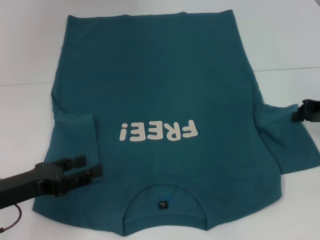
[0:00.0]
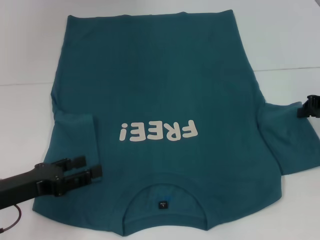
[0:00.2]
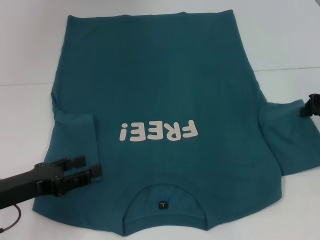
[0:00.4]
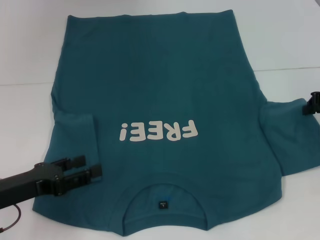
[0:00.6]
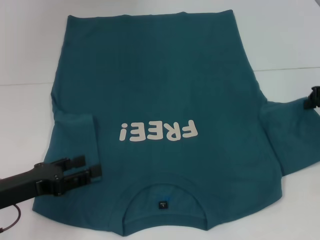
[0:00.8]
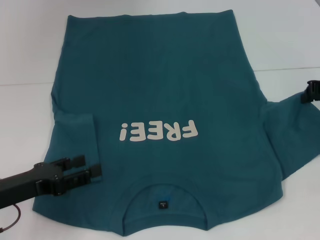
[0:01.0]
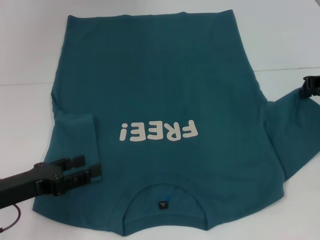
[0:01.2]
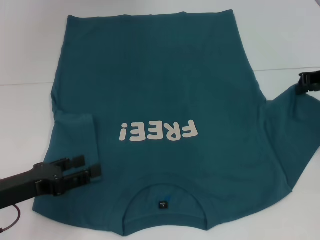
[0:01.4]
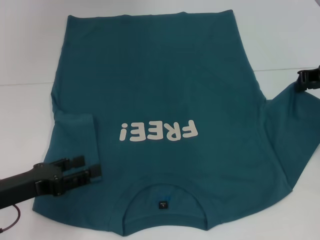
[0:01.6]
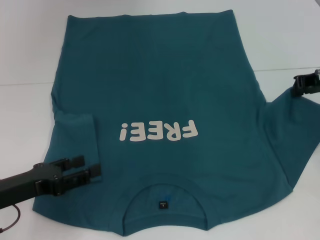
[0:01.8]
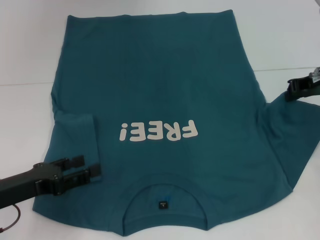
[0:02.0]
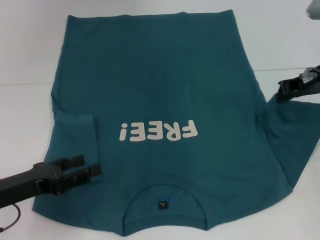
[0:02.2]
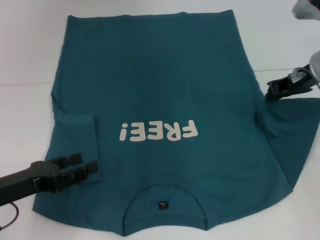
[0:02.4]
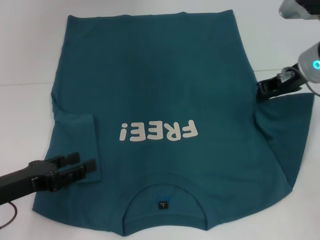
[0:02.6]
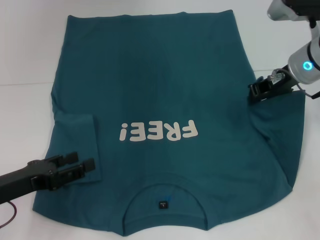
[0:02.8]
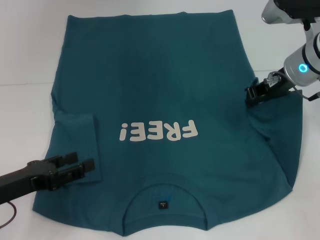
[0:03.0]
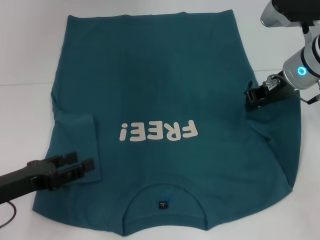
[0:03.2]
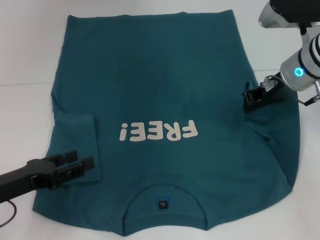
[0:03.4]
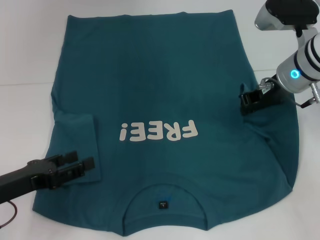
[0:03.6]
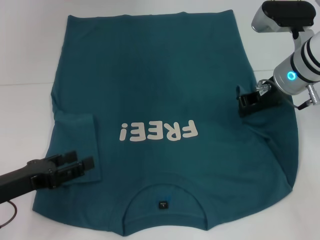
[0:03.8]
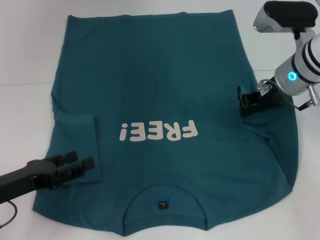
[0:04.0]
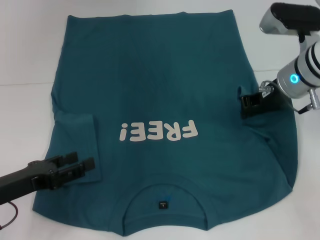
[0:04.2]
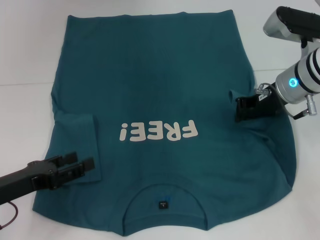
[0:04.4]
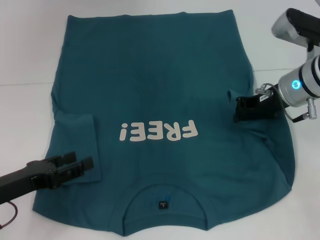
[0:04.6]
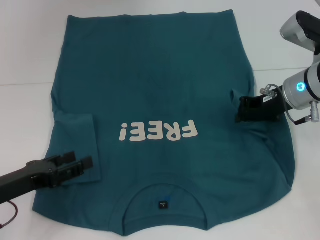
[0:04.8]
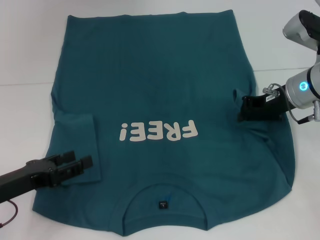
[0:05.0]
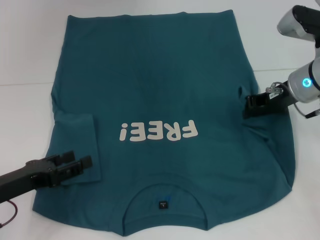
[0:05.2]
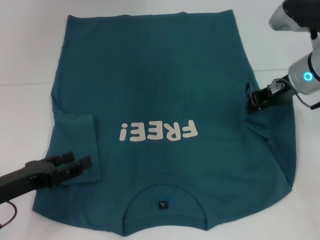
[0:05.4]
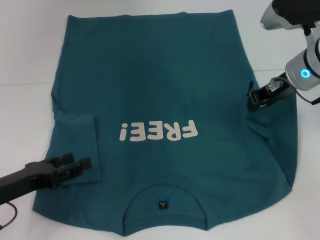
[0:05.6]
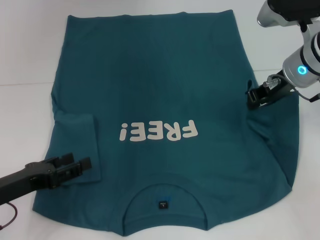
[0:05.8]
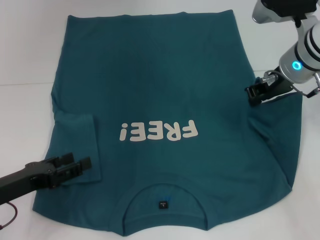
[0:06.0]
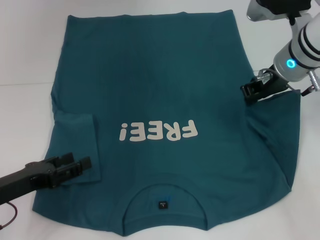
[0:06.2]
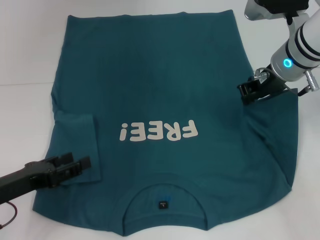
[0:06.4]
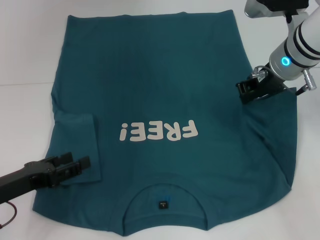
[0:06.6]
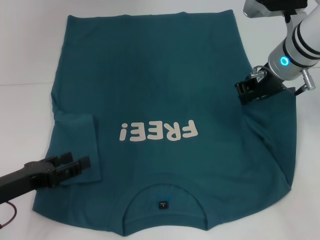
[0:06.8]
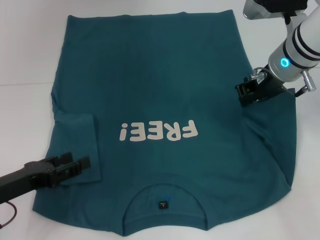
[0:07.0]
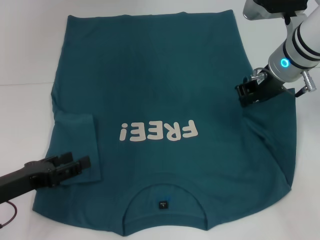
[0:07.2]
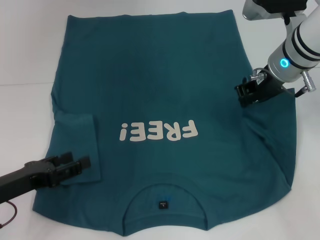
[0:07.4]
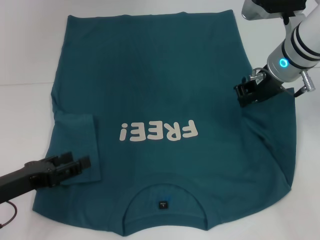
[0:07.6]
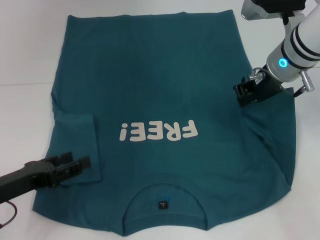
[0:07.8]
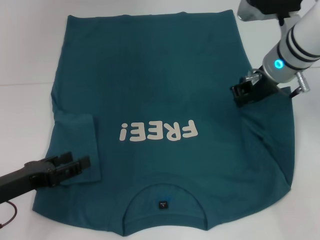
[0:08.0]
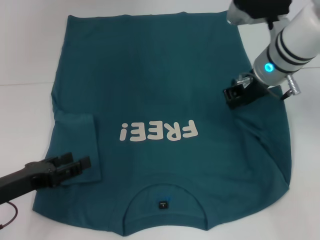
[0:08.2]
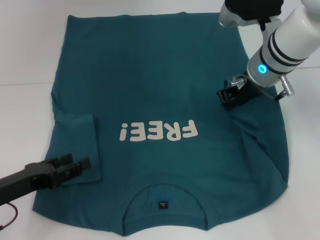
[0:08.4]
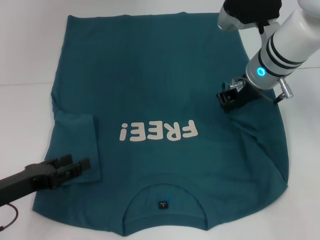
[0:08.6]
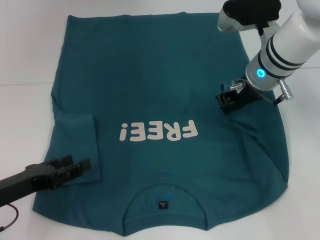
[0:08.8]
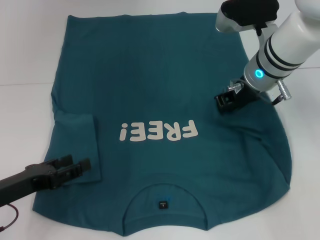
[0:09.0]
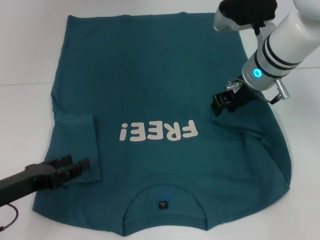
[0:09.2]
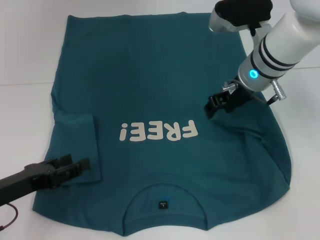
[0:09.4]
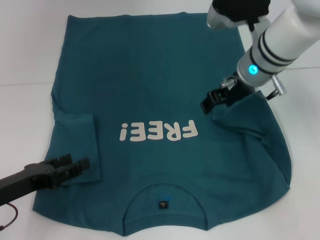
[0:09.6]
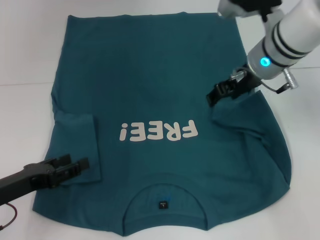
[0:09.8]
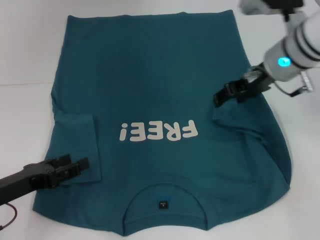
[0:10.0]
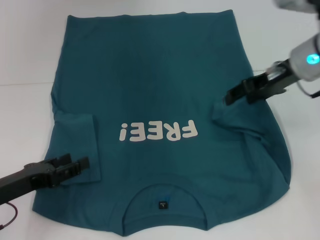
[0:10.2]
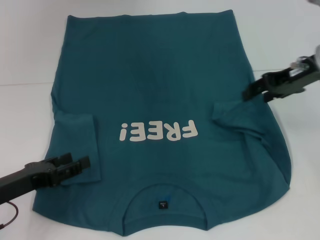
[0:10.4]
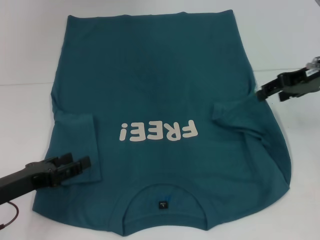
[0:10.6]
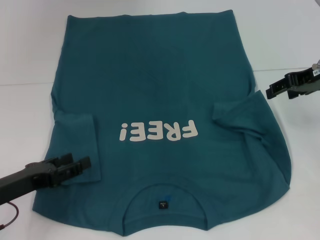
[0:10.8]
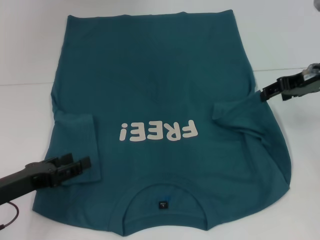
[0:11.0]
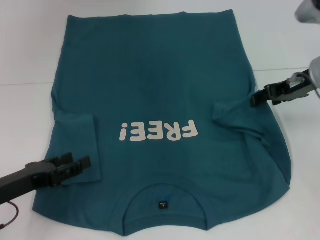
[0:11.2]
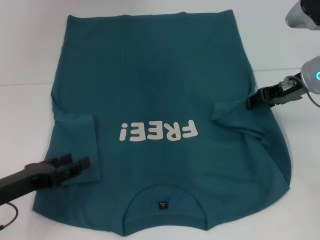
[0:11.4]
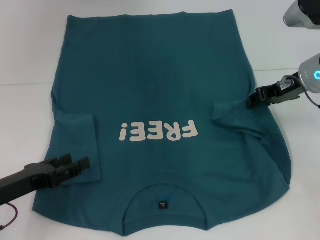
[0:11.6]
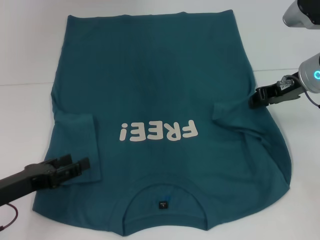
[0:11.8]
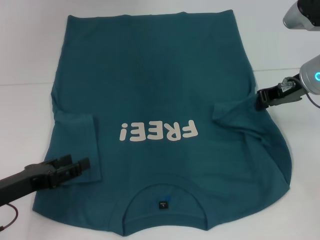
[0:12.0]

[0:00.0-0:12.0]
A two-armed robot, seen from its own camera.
0:00.0 to 0:01.6: The right gripper travels upward by some 5 cm.
0:01.6 to 0:03.0: The right gripper heads to the left, covering approximately 10 cm.
0:03.0 to 0:04.4: The grippers make only small movements.
0:04.4 to 0:07.6: There are only small adjustments of the grippers.
0:07.6 to 0:09.0: The grippers make only small movements.
0:09.0 to 0:10.4: The right gripper moves to the right, some 10 cm, and opens its fingers.
0:10.4 to 0:12.0: The right gripper closes.

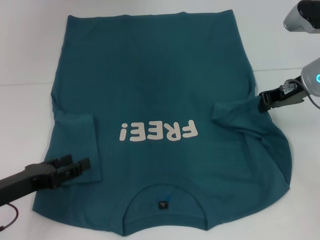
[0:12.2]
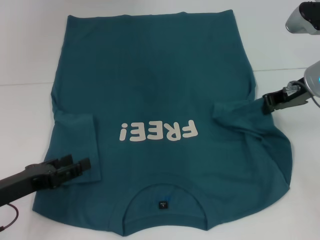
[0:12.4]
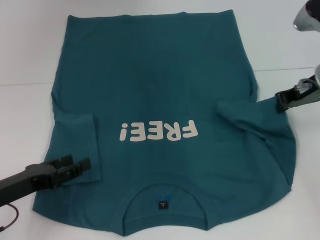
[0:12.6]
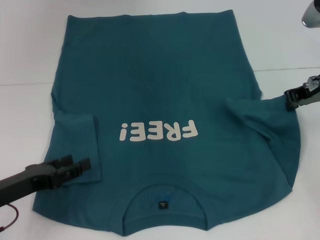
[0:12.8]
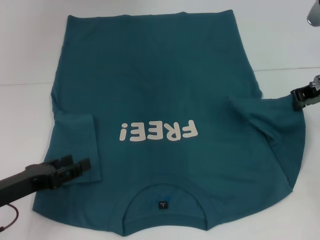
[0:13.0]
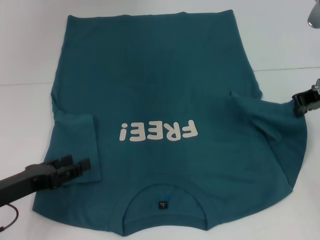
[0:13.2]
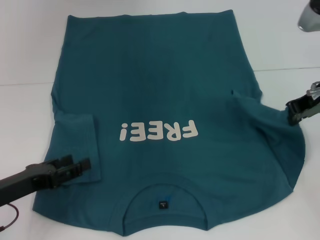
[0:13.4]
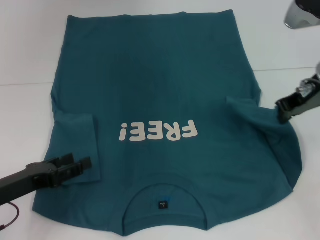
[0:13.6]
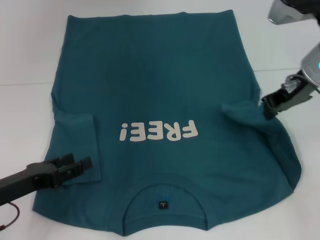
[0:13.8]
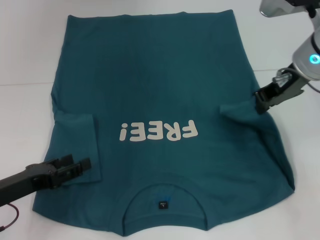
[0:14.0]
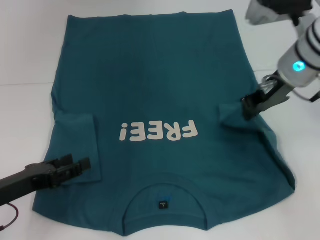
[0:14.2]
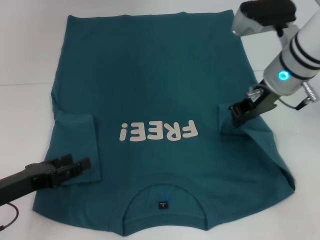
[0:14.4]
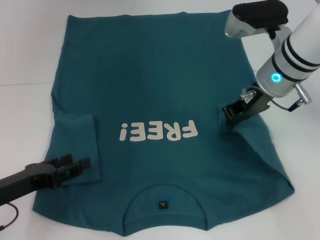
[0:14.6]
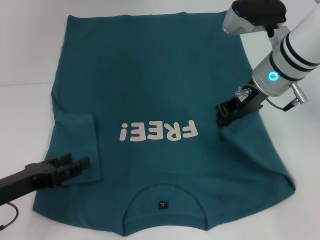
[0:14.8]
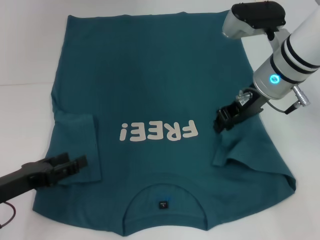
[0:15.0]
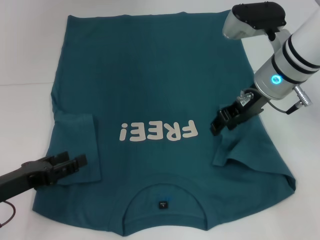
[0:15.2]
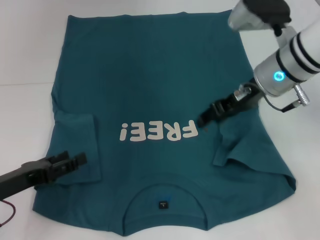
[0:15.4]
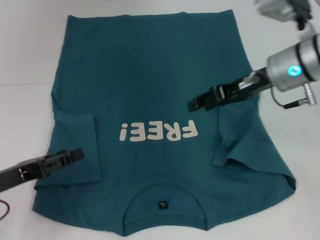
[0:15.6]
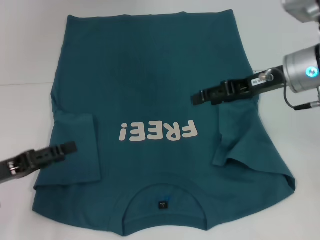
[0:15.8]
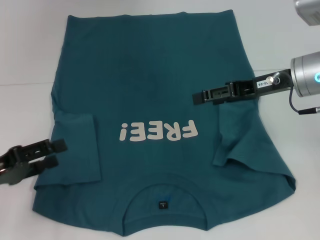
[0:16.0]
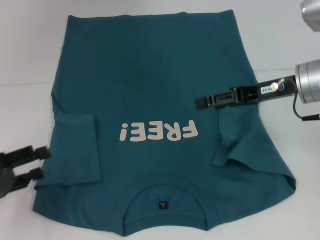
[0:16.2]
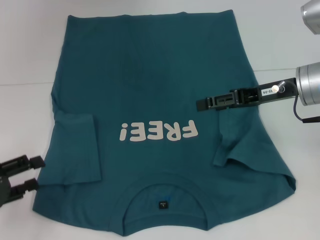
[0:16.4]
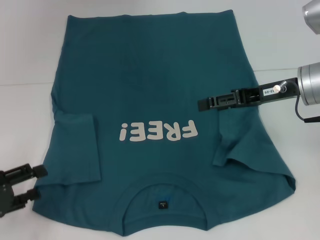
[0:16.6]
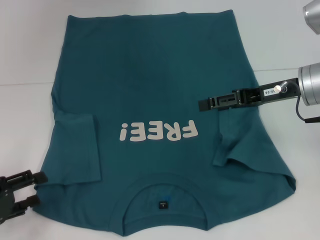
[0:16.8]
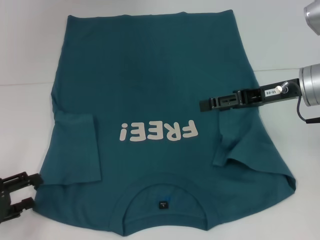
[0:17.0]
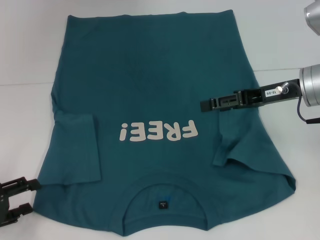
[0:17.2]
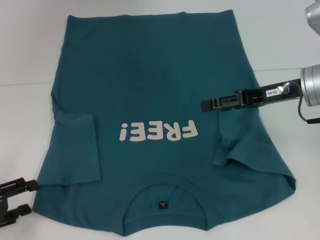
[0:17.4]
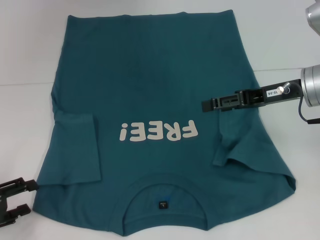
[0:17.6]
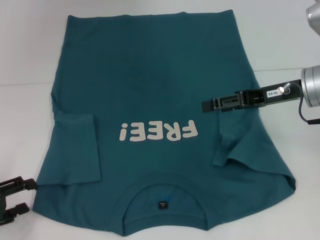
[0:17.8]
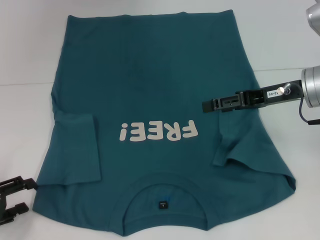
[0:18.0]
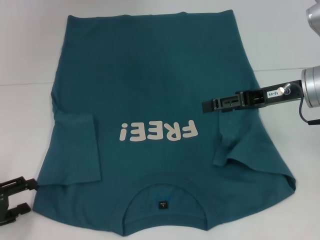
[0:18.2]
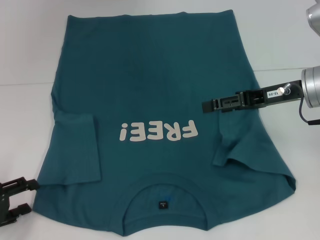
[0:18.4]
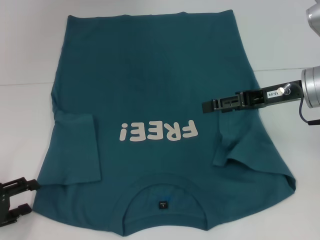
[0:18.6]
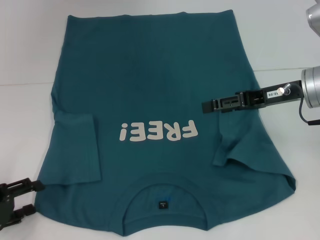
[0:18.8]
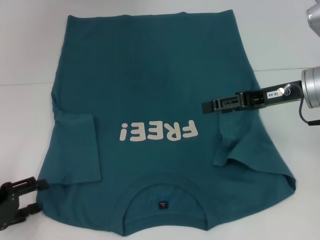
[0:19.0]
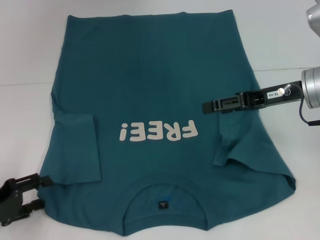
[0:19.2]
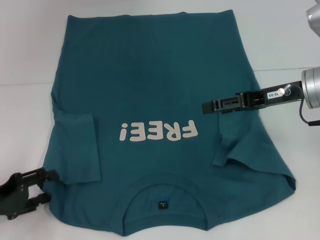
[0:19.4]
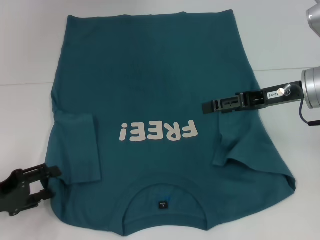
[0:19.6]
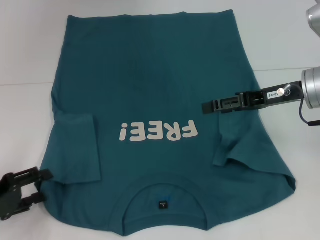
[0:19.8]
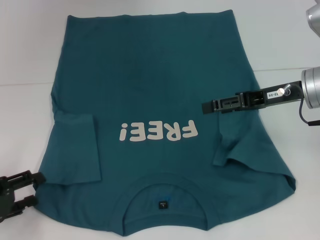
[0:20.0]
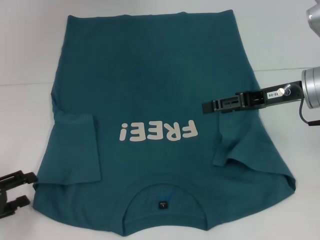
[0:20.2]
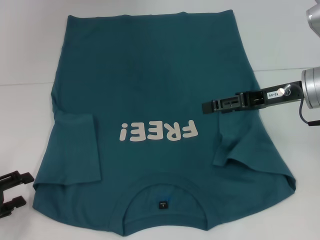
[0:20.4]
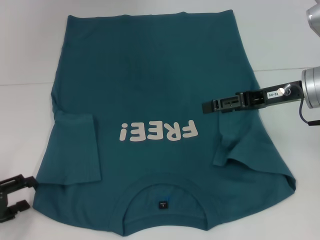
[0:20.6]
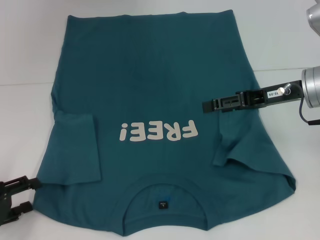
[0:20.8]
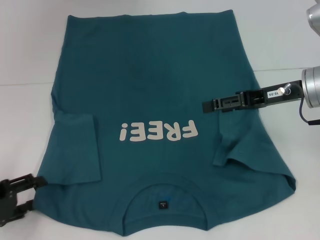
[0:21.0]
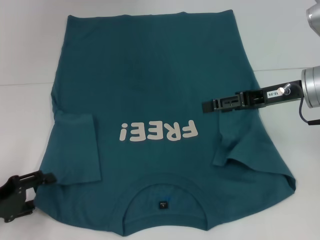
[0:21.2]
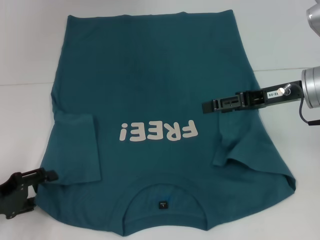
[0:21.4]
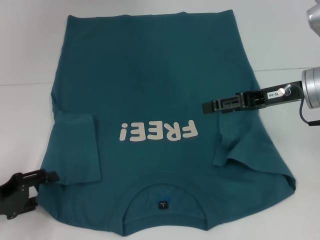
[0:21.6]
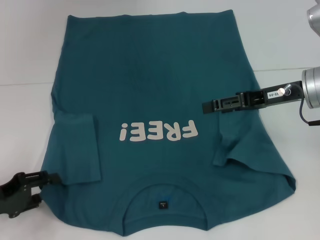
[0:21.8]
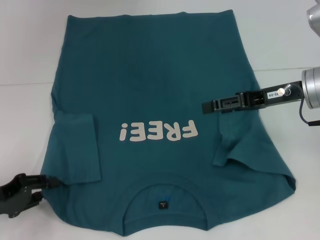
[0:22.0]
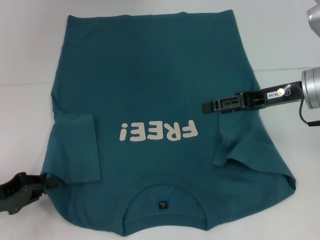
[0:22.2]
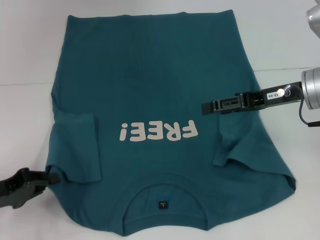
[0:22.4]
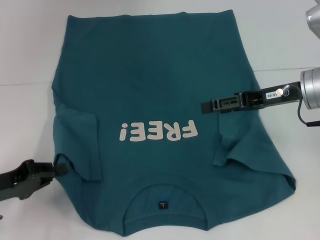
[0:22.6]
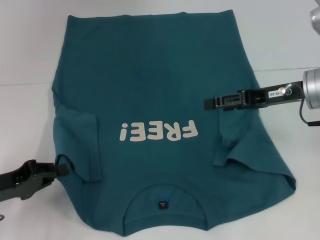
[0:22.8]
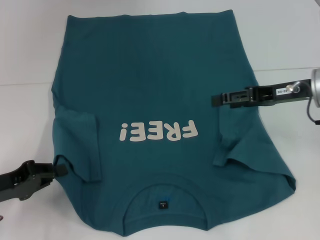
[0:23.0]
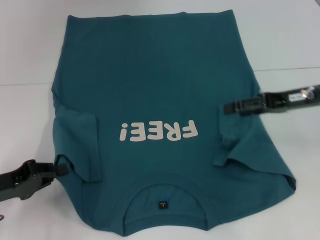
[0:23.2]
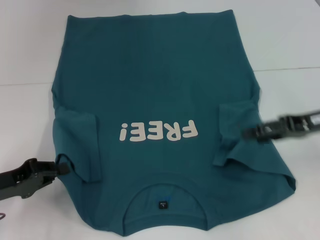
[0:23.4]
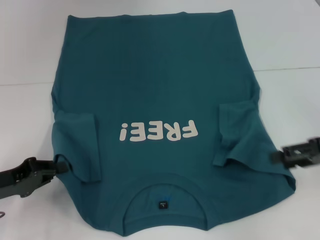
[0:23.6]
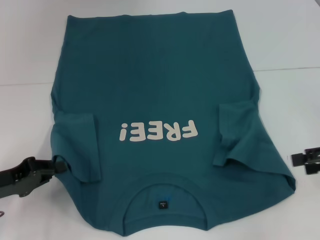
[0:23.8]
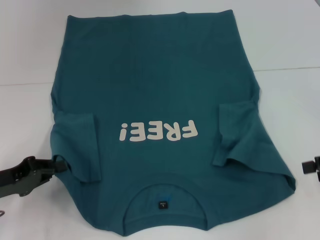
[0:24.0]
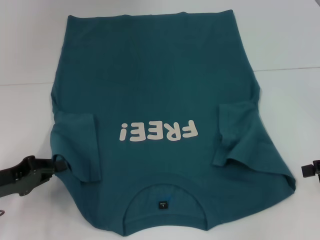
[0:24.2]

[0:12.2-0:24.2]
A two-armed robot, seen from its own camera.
Step, 0:12.2 to 0:15.4: Fold the bottom right sleeve to the right.
Step, 0:15.6 to 0:23.0: Grab the bottom left corner with your left hand.
0:12.2 to 0:13.8: The right gripper ends up some 5 cm from where it was.
0:13.8 to 0:15.2: The right gripper heads to the left, covering approximately 5 cm, and opens up.
0:15.2 to 0:16.6: The left gripper moves to the left, approximately 5 cm. Meanwhile the right gripper heads to the right, covering approximately 5 cm, and opens up.
0:16.6 to 0:21.2: The grippers stay close to where they were, moving slightly.
0:21.2 to 0:22.6: The left gripper closes.
0:22.6 to 0:24.2: The right gripper shifts approximately 15 cm to the right and backward.
